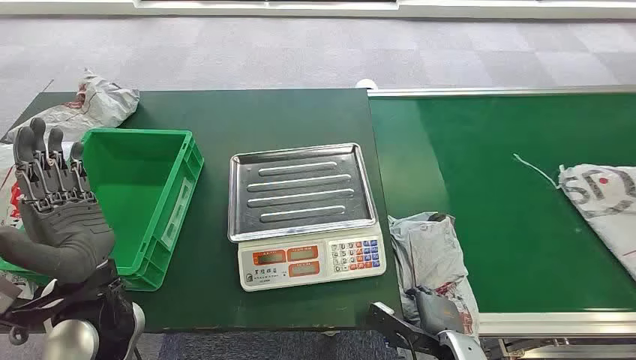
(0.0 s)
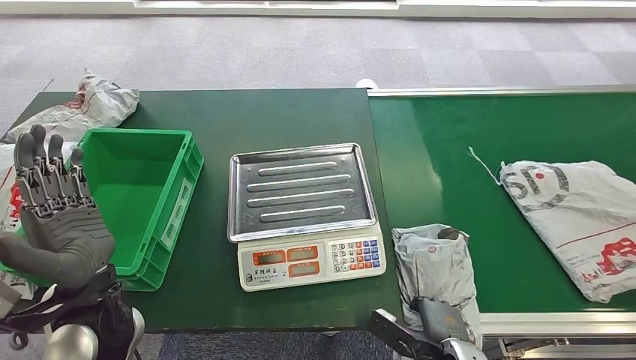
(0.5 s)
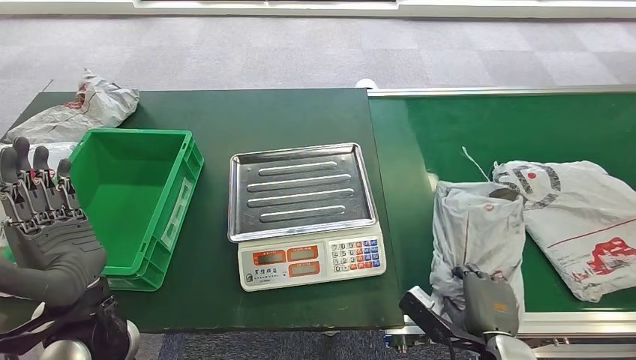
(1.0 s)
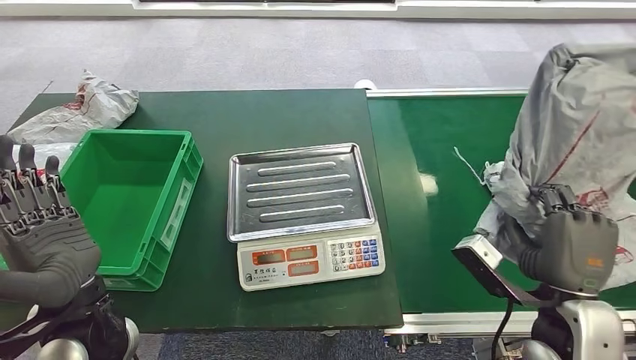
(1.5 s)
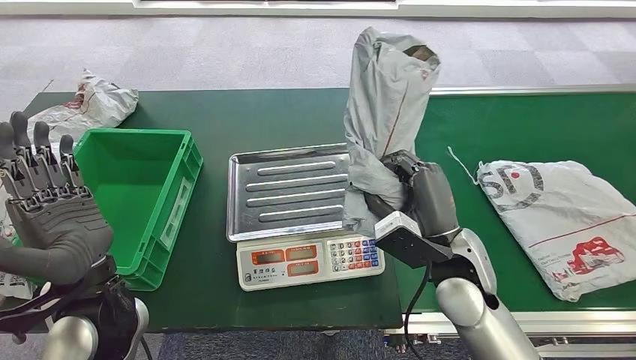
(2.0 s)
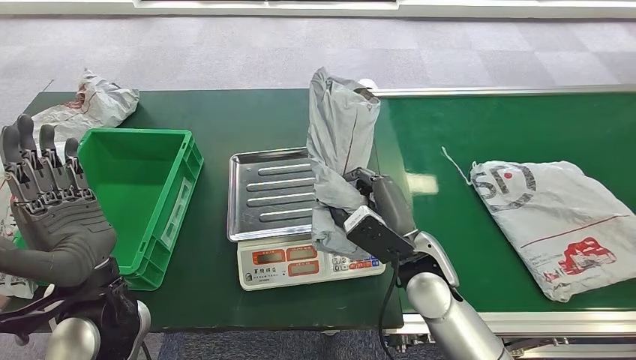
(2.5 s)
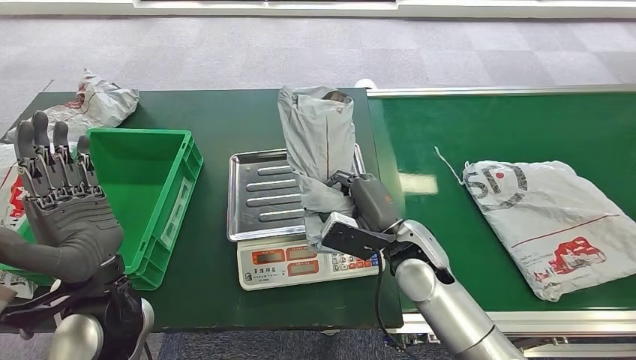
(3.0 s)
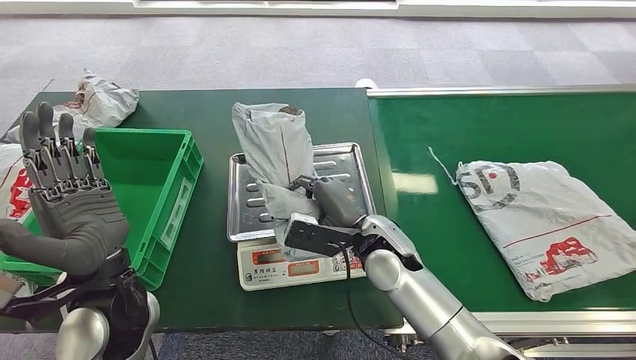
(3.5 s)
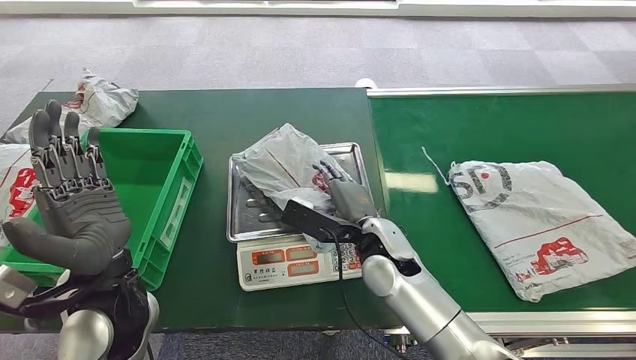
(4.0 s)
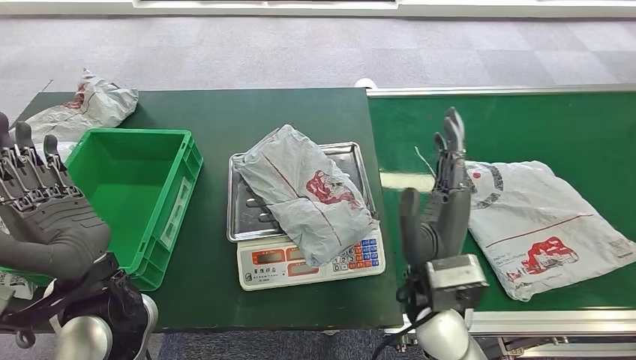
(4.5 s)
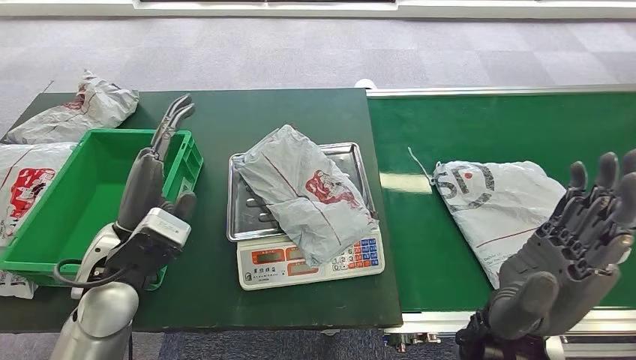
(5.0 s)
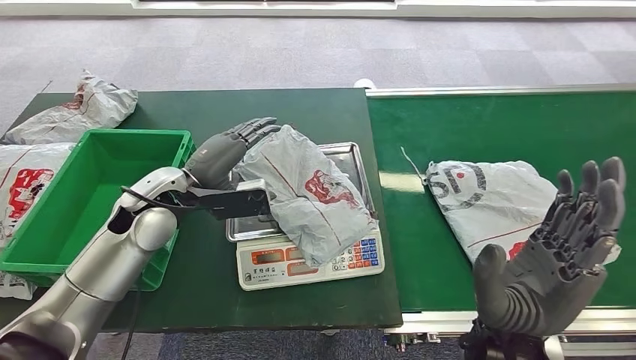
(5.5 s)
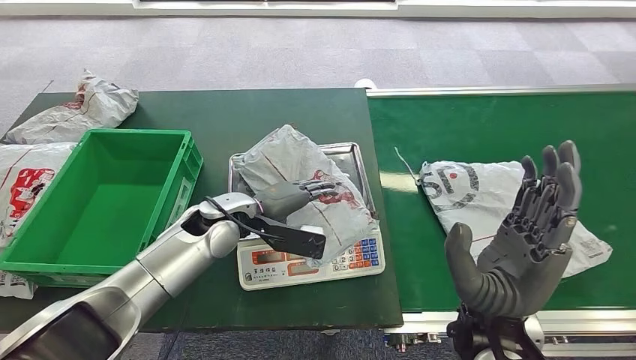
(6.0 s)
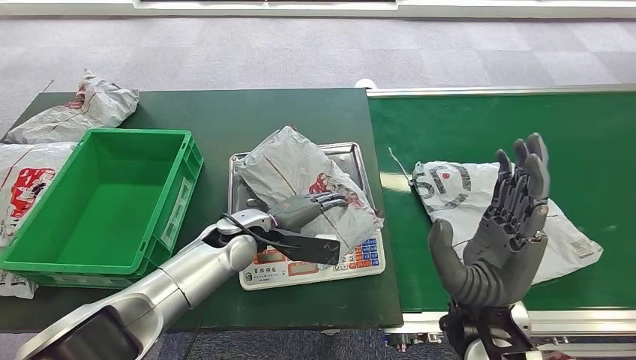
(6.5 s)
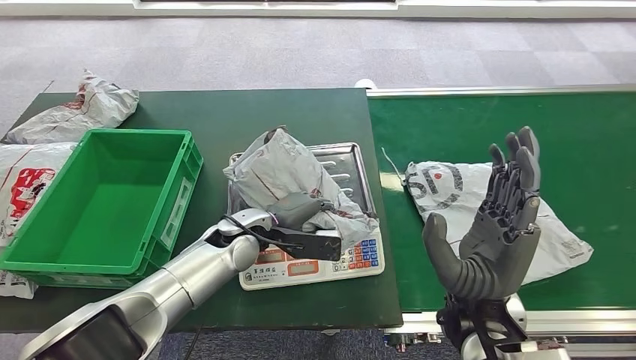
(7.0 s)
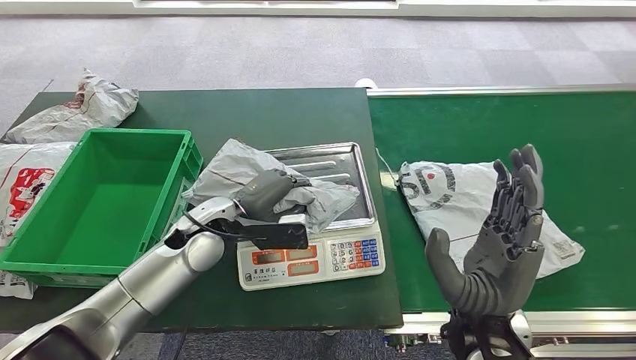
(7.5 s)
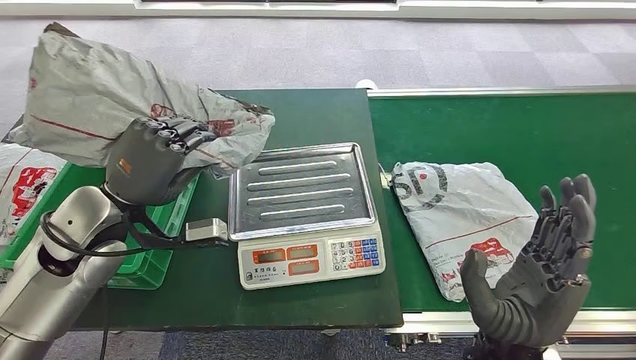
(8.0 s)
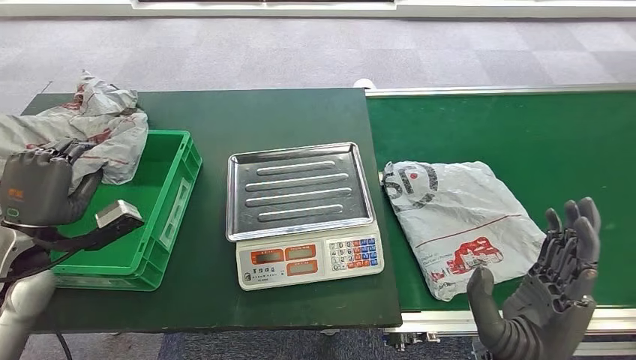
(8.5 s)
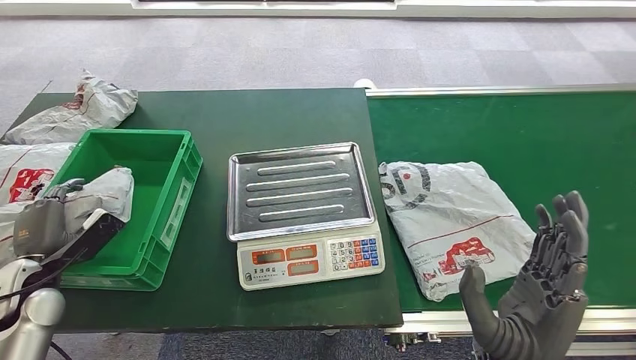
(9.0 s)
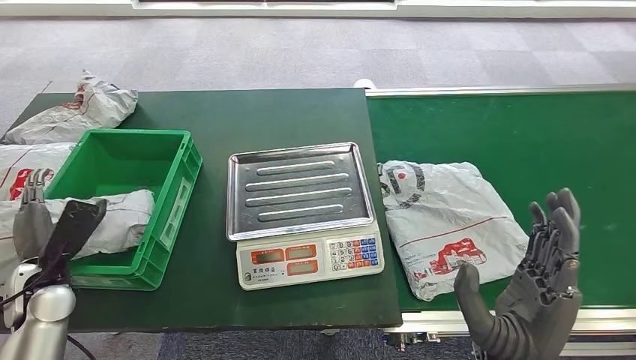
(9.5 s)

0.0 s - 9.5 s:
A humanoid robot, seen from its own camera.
Step, 0.0 s - 1.0 s: Pick up the package from the conveyor belt.
Step, 1.5 s - 5.0 s: Place the package onto the inbound machine.
Step, 5.5 s - 8.0 s: Pick up the package from the inbound machine.
Step, 8.5 s - 9.5 s: Place the package into the parcel locker.

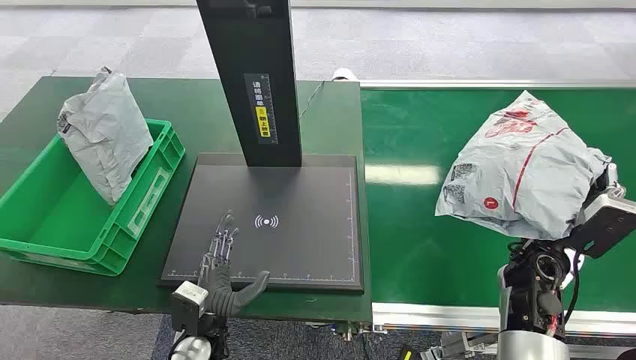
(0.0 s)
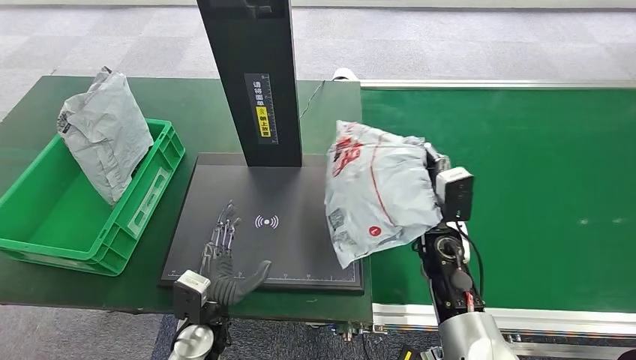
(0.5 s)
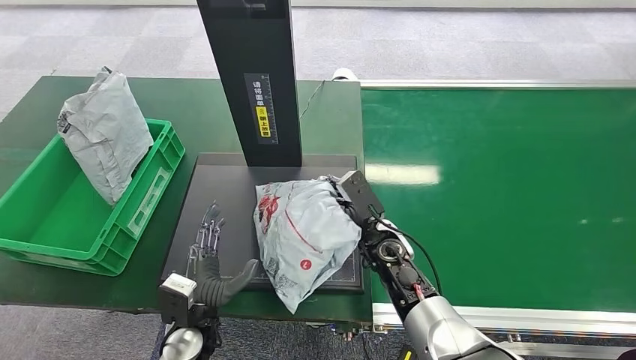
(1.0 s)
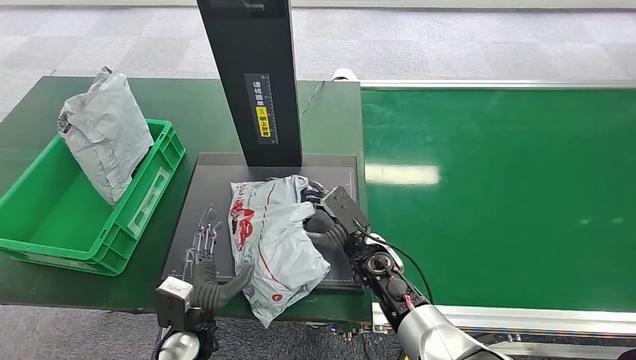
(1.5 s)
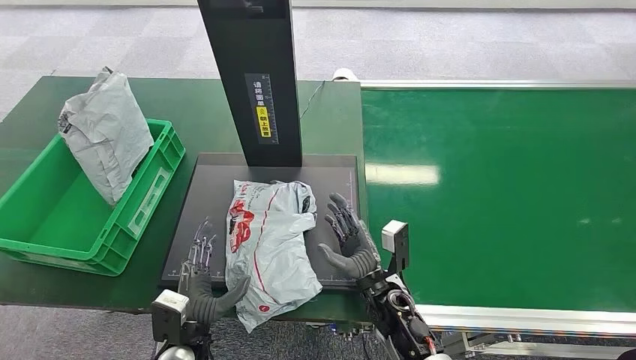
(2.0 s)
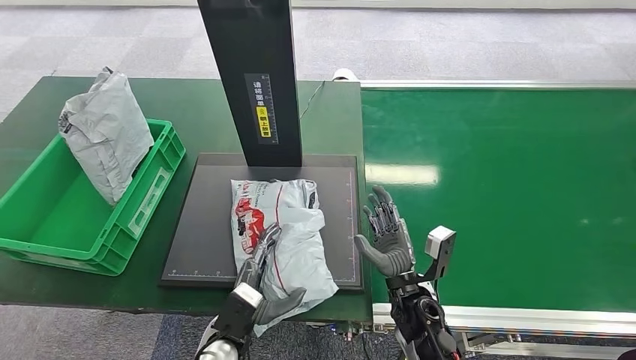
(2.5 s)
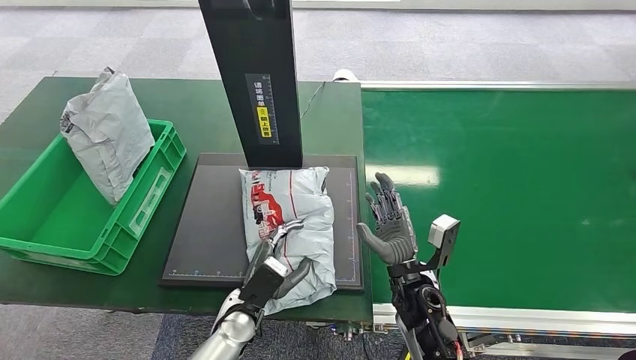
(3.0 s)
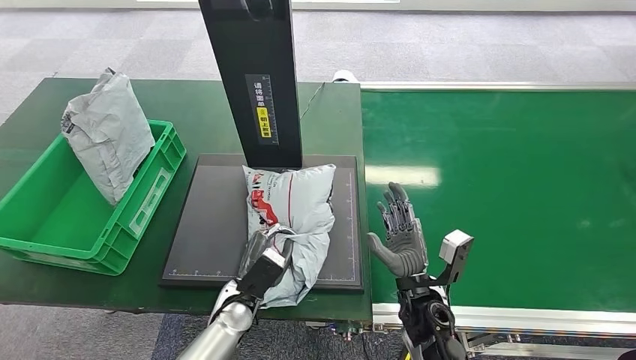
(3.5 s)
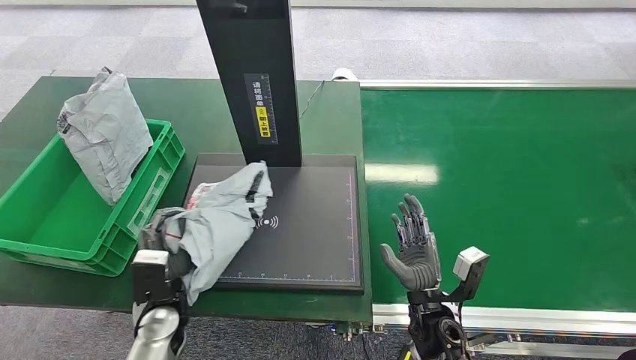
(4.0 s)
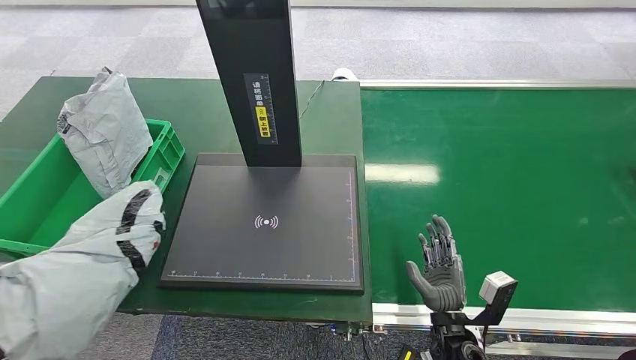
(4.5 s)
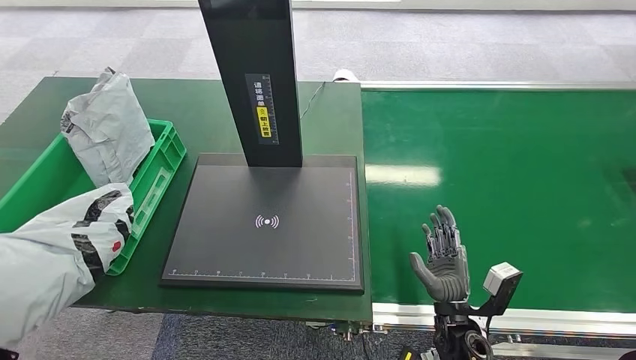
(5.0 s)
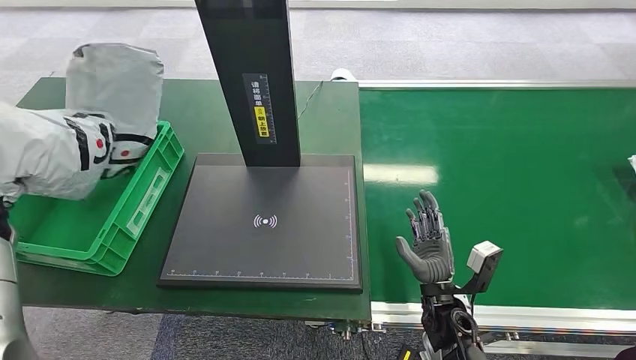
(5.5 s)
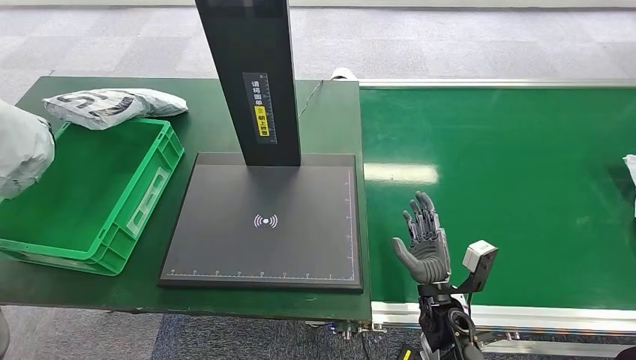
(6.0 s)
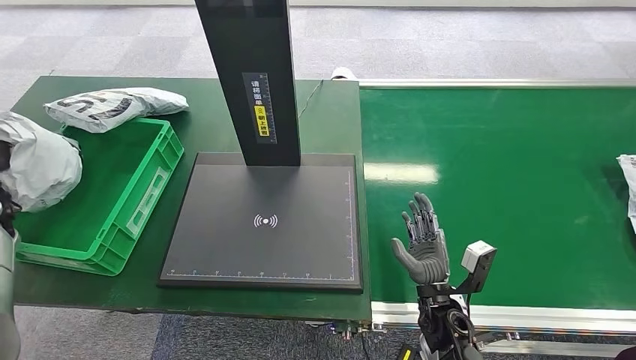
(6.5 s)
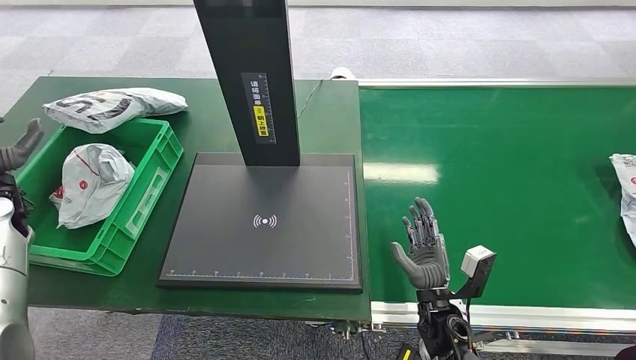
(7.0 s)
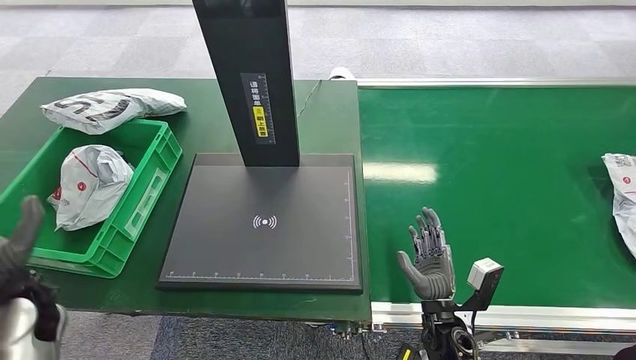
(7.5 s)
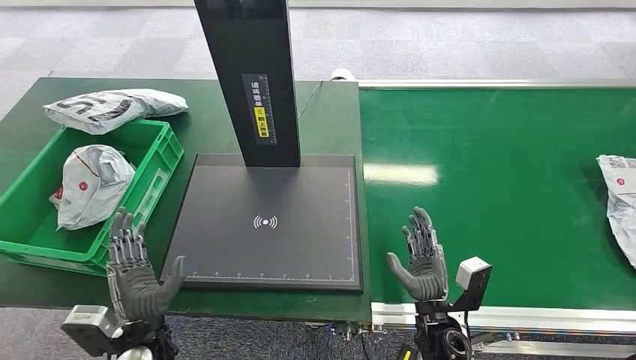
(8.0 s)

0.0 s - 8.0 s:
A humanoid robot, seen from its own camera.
2.0 s - 4.0 s: The left hand travels forward by approximately 5 cm, while the right hand is displaced to the right by some 5 cm.
4.0 s - 6.0 s: The left hand moves to the left and upward, roughly 40 cm.
6.0 s - 8.0 s: The left hand is displaced to the right, downward and backward by about 40 cm.
